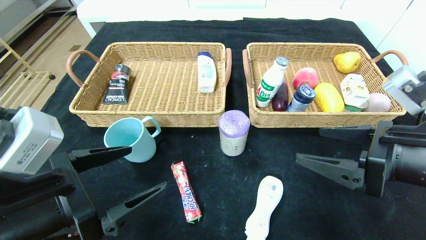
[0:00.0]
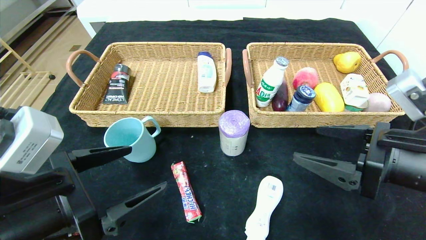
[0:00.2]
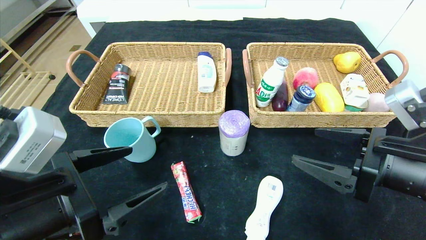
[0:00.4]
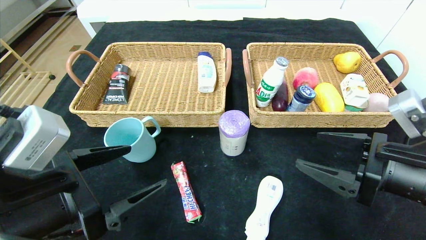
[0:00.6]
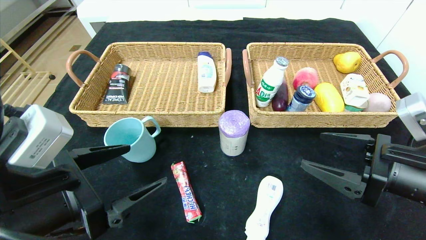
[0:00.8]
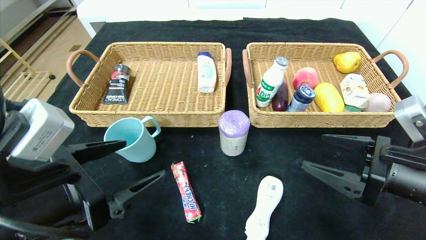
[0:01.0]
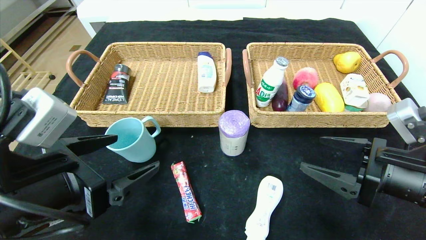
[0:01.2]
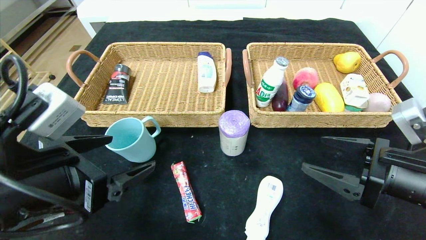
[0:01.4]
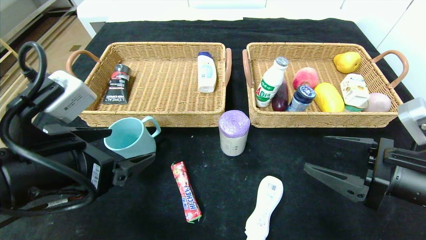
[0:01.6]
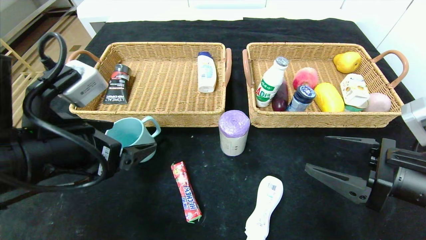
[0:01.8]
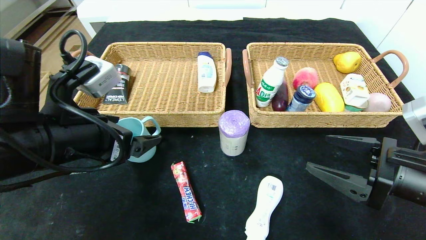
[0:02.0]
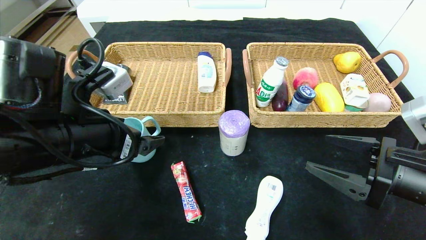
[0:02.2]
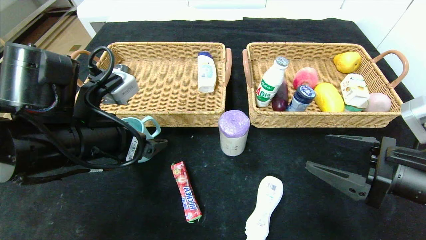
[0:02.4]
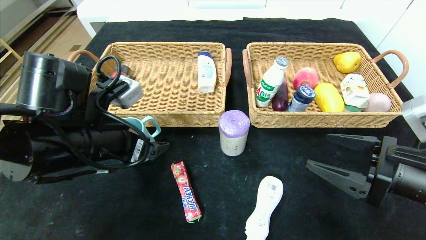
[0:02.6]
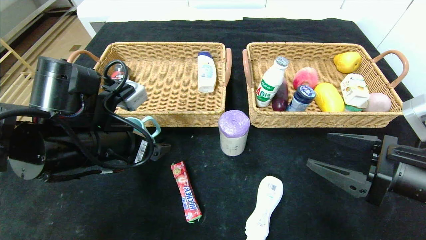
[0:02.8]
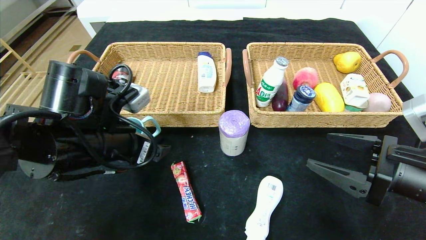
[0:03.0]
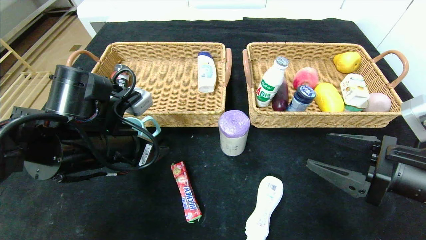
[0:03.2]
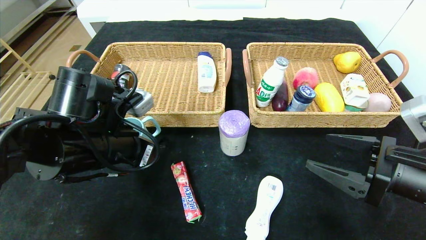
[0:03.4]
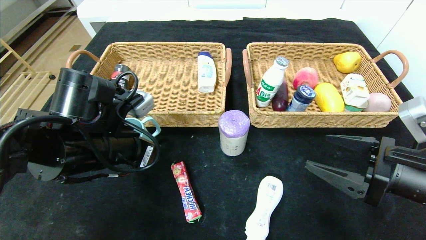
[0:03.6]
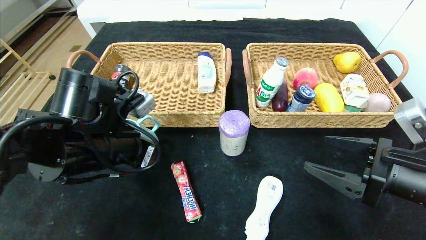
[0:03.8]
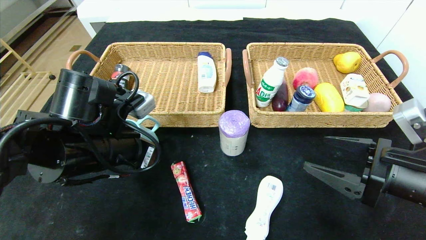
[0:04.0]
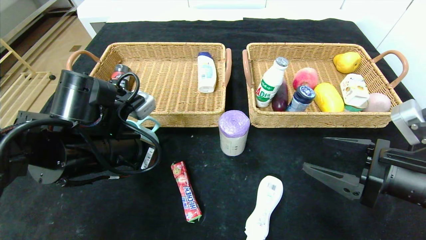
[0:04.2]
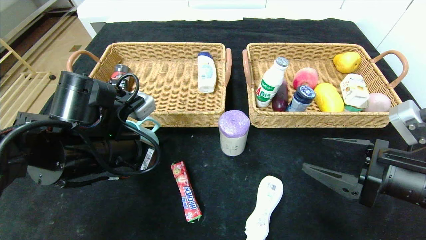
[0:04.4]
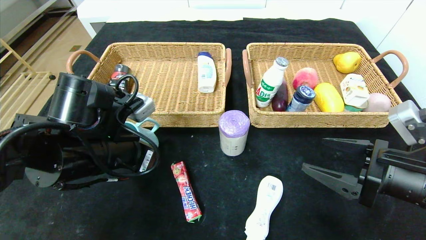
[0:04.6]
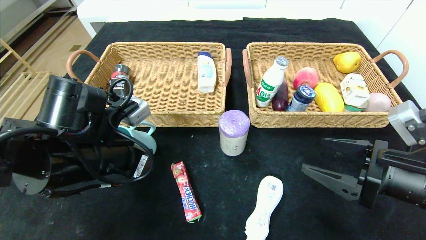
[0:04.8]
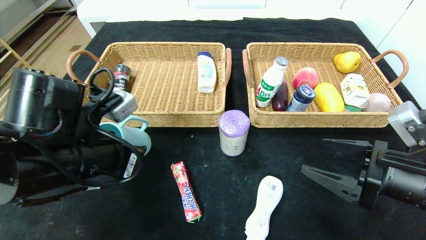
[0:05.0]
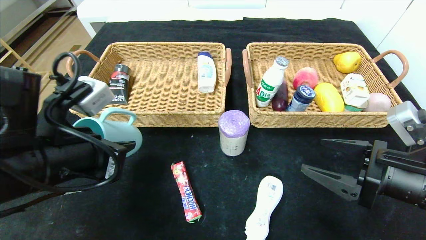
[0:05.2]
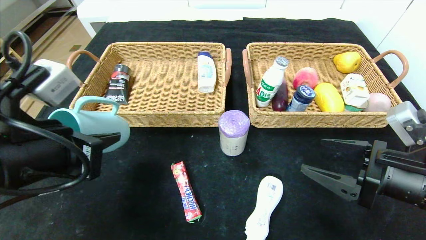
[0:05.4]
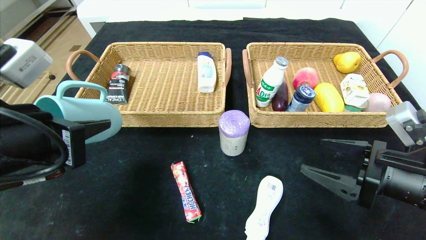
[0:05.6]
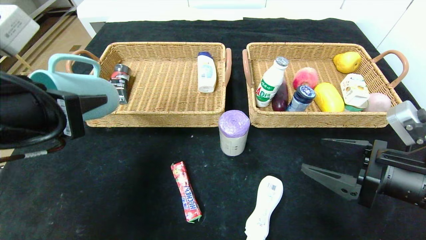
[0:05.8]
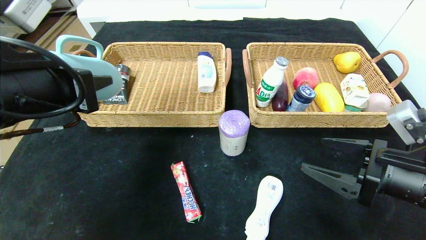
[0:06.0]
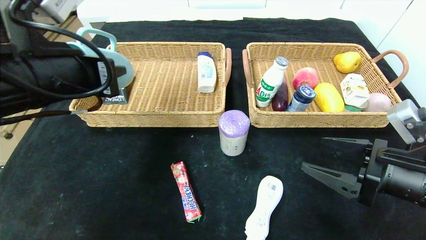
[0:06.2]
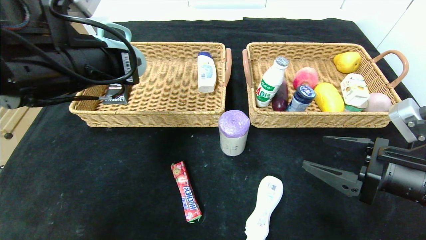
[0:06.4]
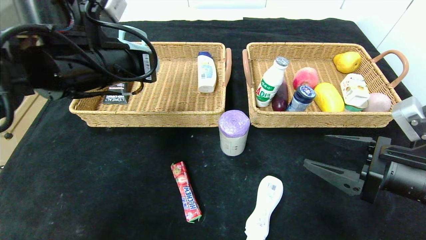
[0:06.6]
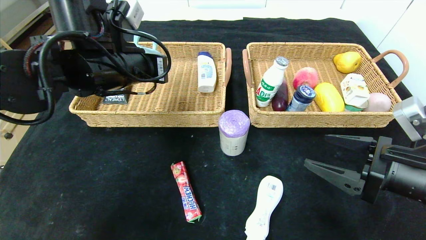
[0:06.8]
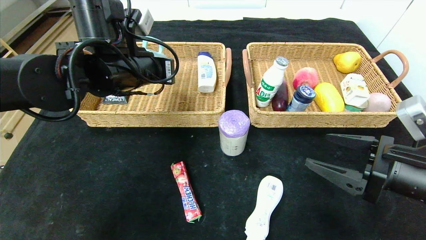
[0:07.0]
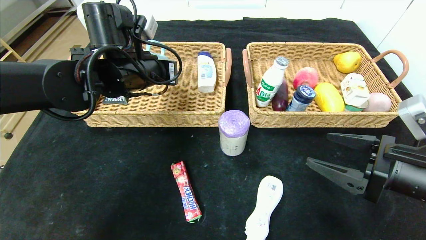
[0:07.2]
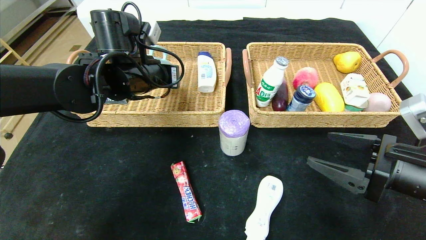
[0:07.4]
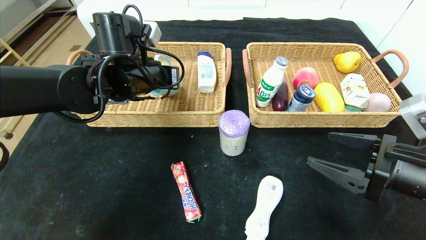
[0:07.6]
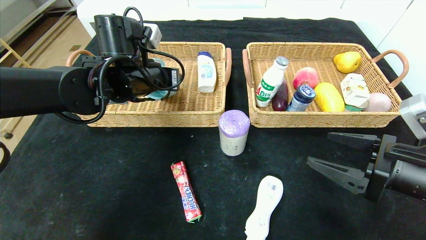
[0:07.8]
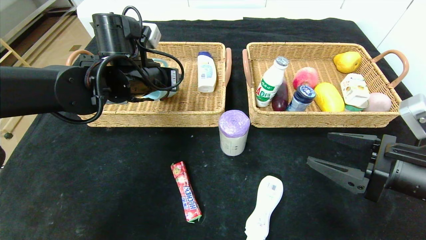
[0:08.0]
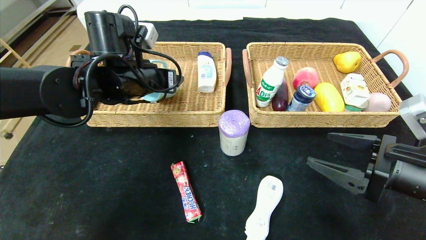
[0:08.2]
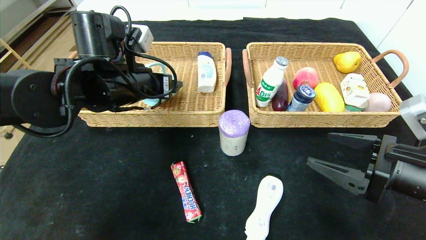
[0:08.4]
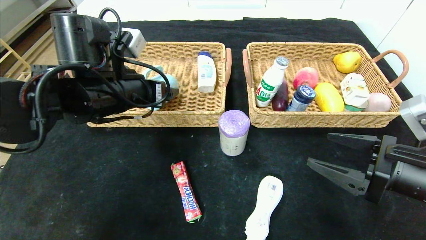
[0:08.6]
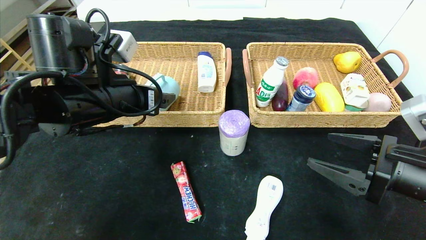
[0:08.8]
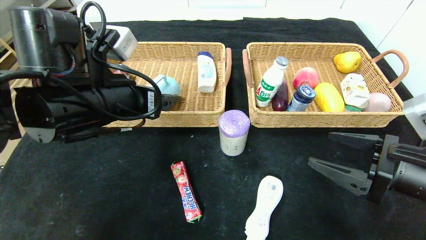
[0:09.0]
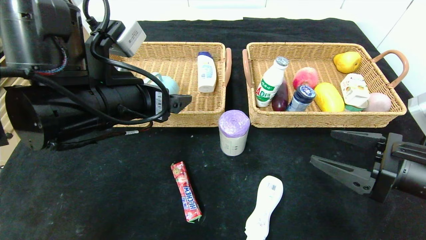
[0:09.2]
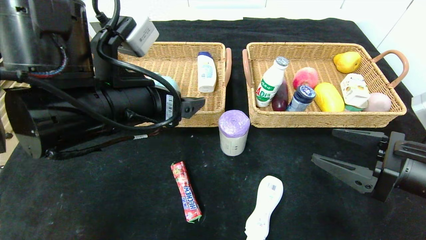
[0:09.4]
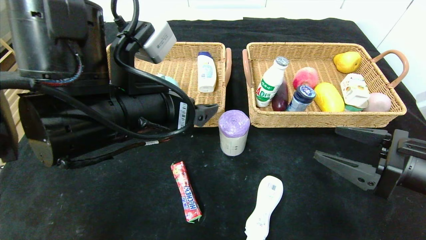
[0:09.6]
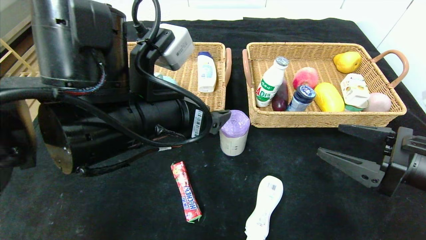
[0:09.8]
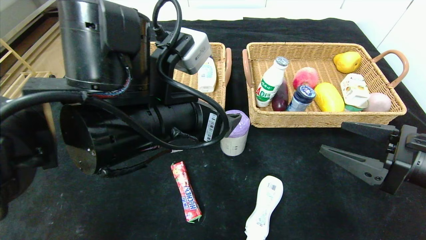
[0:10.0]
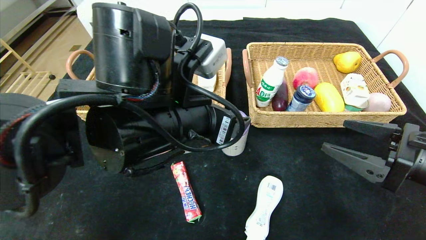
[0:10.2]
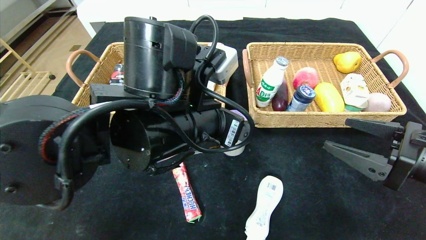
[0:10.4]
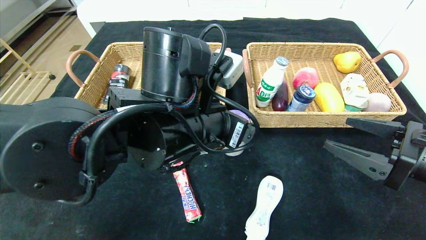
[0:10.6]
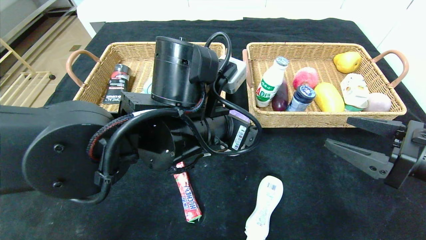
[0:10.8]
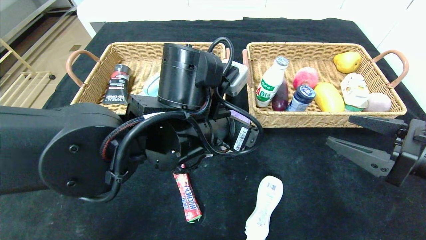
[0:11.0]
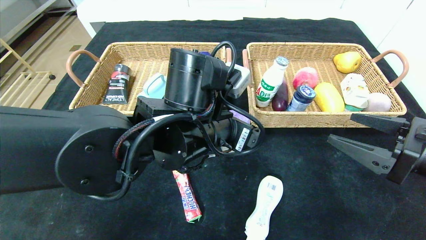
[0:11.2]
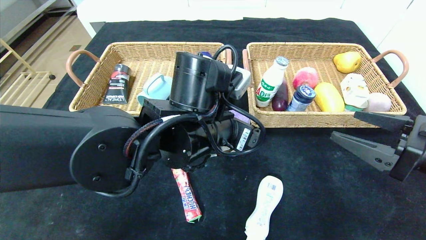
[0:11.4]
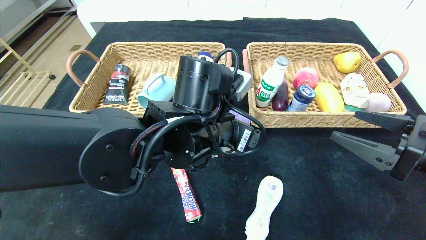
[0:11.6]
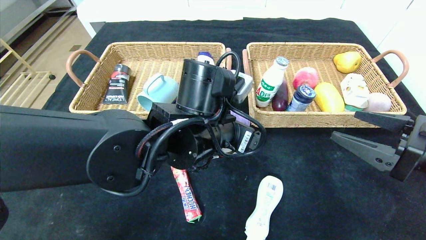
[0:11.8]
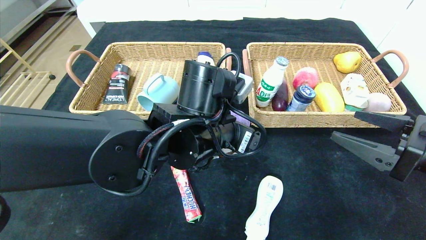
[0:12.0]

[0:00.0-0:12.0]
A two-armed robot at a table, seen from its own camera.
Step, 0:00.0 to 0:08.8: Grasp the blue cup and put it in the left basket.
0:00.0 to 0:01.6: The right gripper changes place by approximately 5 cm.
0:01.6 to 0:03.0: The left gripper moves forward, approximately 10 cm.
0:03.0 to 0:04.4: The left gripper closes its fingers.
0:04.4 to 0:06.0: The left gripper heads upward, covering roughly 10 cm.
0:06.0 to 0:07.6: The left gripper shifts about 15 cm forward.
0:07.6 to 0:09.0: The left gripper heads backward, covering approximately 10 cm, and opens its fingers.
0:09.0 to 0:10.4: The left gripper is displaced to the right by roughly 10 cm.
0:10.4 to 0:12.0: The left gripper ends up some 5 cm from where it was.

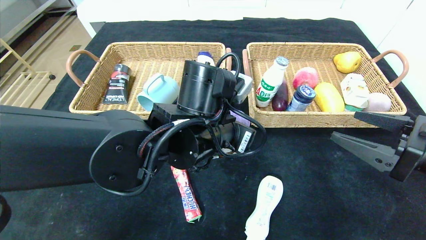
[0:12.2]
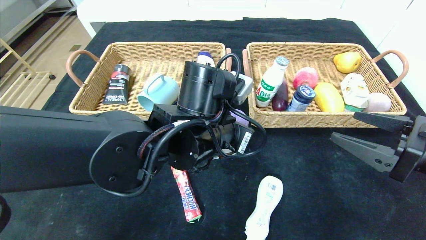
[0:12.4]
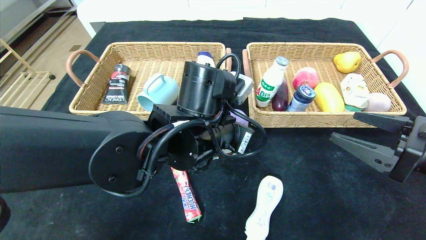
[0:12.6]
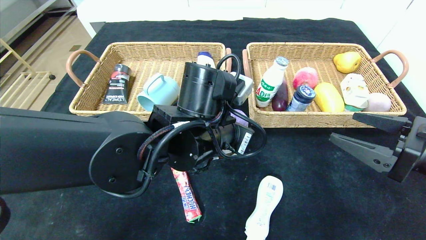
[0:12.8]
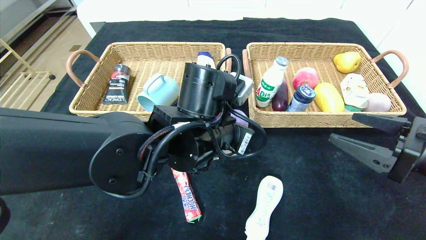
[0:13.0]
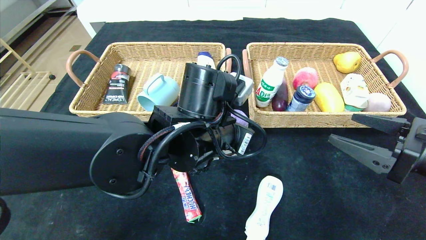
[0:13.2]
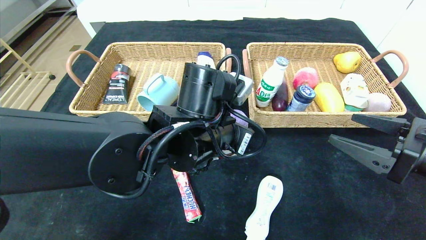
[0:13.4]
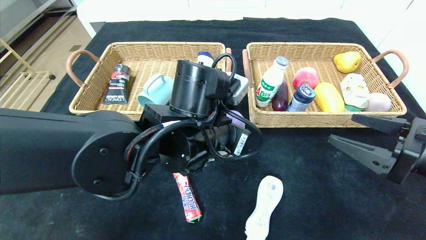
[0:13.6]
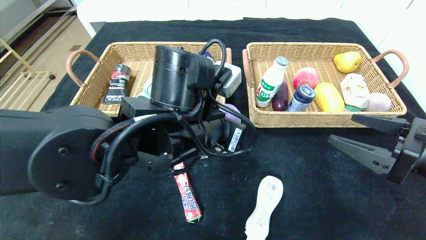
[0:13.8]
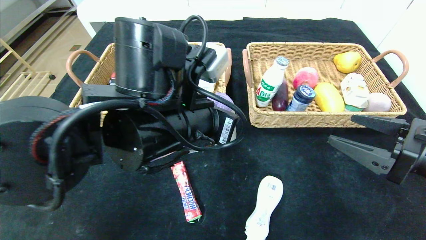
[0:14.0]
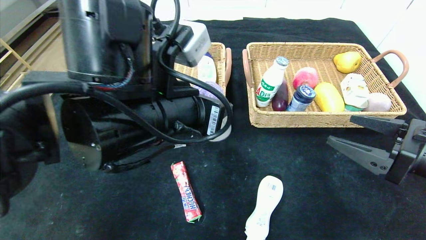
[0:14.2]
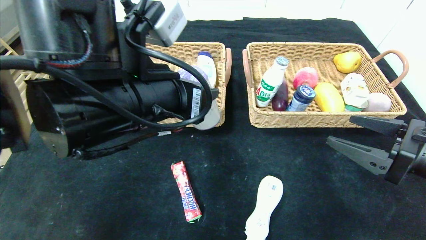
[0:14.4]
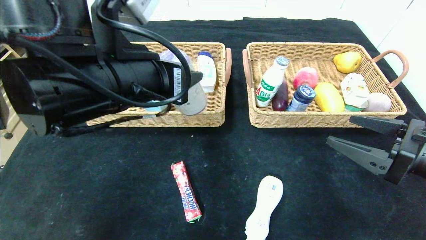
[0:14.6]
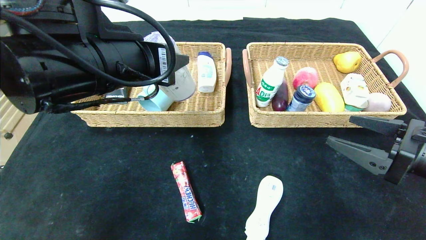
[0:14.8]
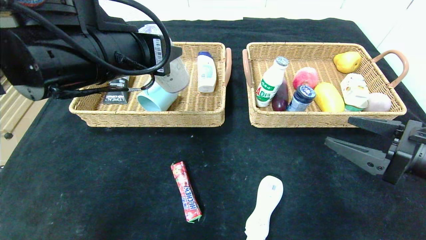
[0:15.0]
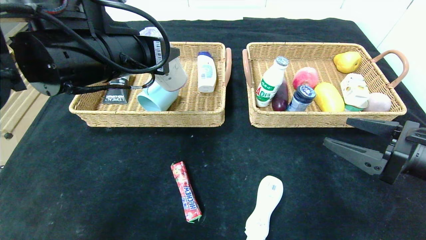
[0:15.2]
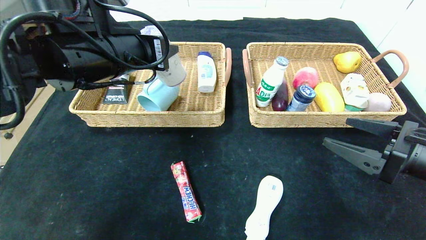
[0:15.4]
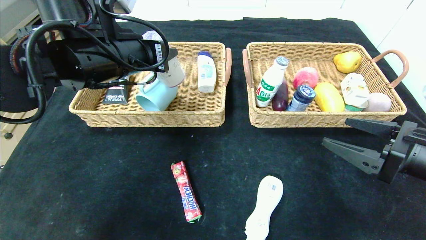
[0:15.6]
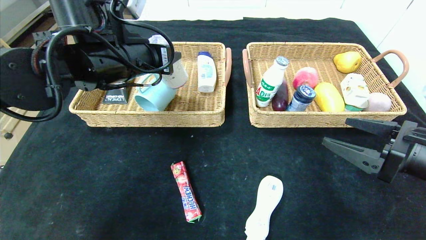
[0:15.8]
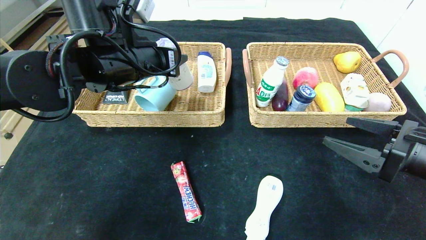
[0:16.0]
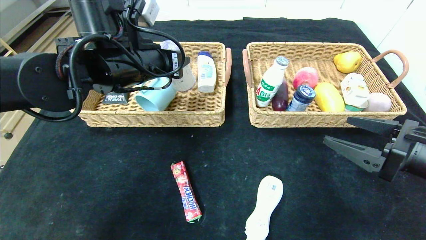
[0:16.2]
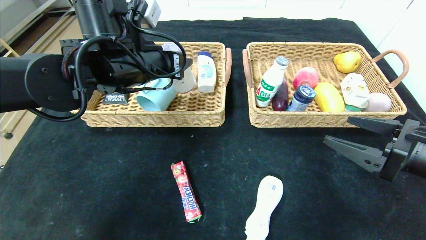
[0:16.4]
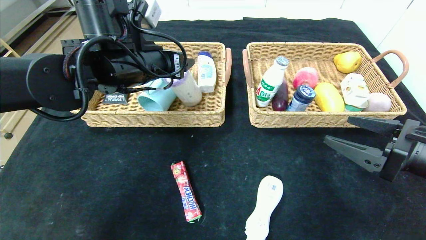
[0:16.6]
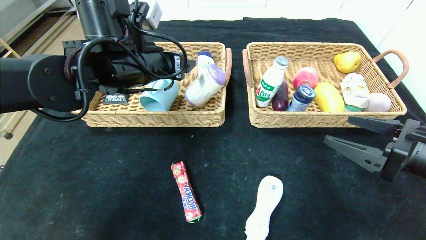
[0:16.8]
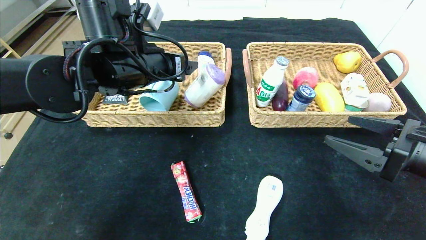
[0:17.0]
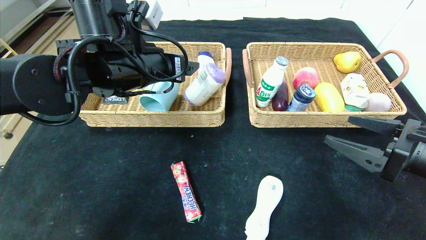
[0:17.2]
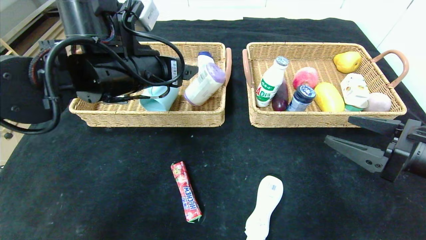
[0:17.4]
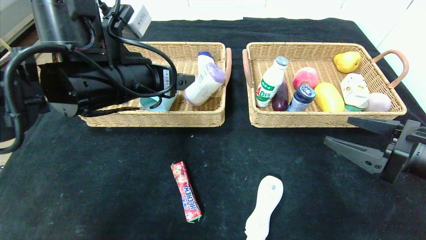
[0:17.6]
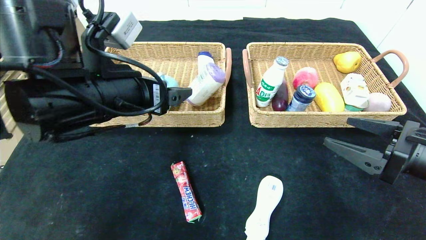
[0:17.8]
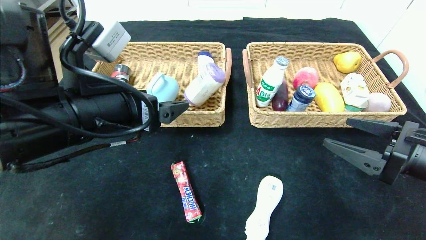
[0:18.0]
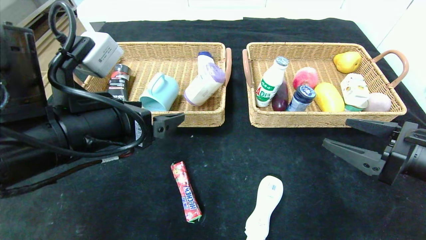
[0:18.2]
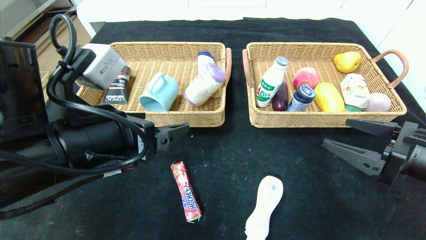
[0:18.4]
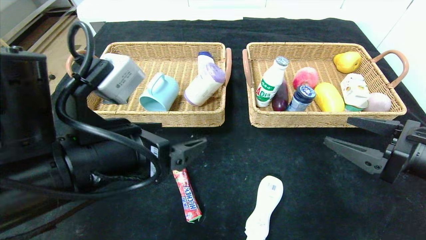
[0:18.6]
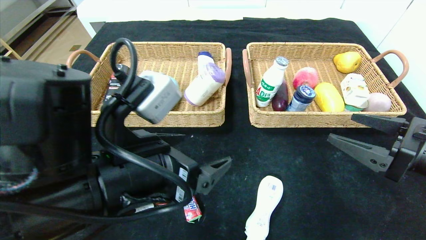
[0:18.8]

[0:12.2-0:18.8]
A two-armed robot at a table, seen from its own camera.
Step, 0:12.2 to 0:17.0: Grasp the purple garbage bag and put it in the left basket.
0:12.2 to 0:13.8: The grippers stay close to where they were, moving slightly.
0:13.8 to 0:15.4: The left gripper shifts about 15 cm to the left, upward and forward.
0:15.4 to 0:17.2: The left gripper opens.
0:17.2 to 0:18.8: The left gripper shifts about 20 cm backward and downward.
